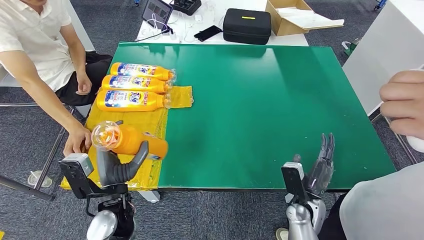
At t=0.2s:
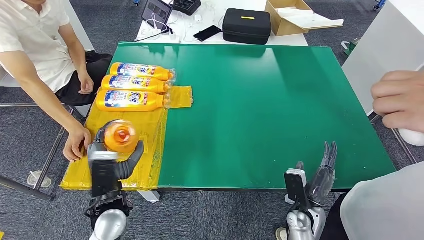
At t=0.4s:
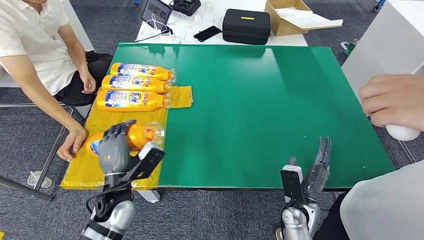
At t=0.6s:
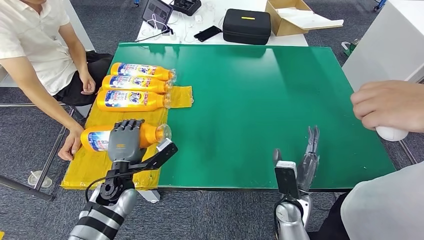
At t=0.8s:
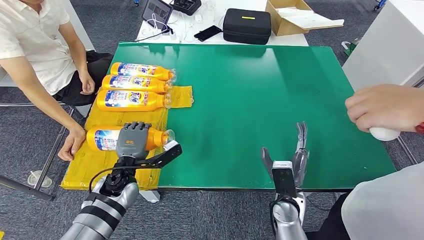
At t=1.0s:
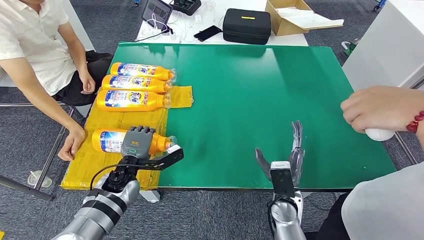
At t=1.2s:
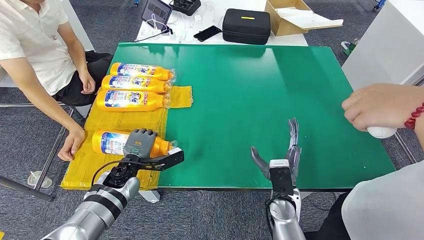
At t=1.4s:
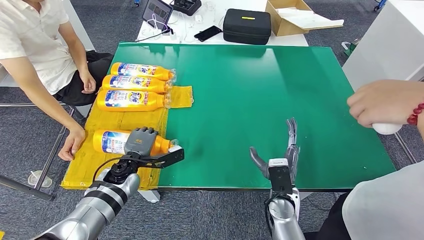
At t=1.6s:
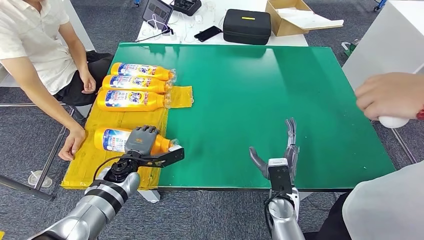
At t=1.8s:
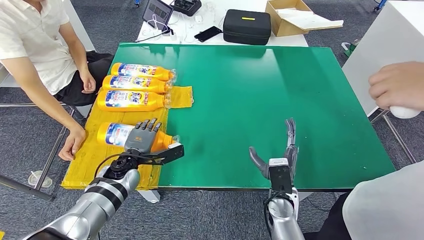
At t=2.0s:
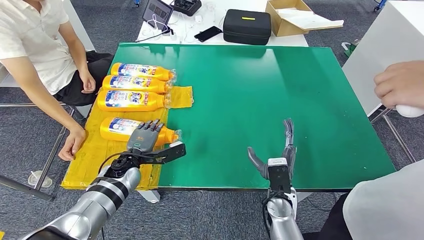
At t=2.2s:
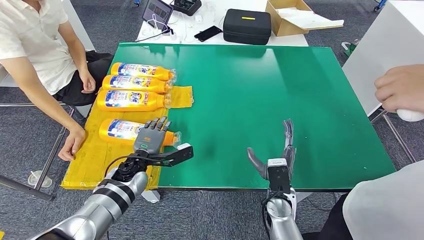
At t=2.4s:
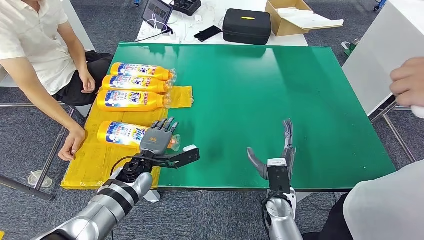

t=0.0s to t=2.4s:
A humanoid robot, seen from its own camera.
Step, t=0.0s to t=2.4s: Flip the bottle to face forward.
t=0.0s to t=1.2s: The left hand goes approximately 15 cm forward and downward. Meanwhile the right hand goes approximately 5 cm to the left.
t=1.2s to t=2.4s: The hands stay close to where they were, moving slightly.
